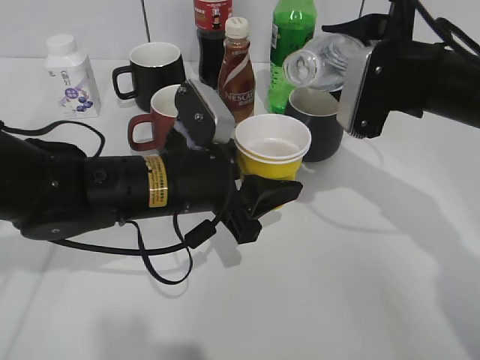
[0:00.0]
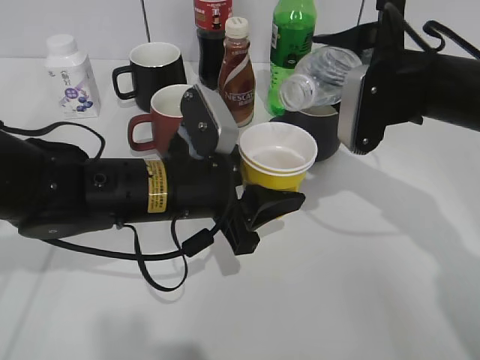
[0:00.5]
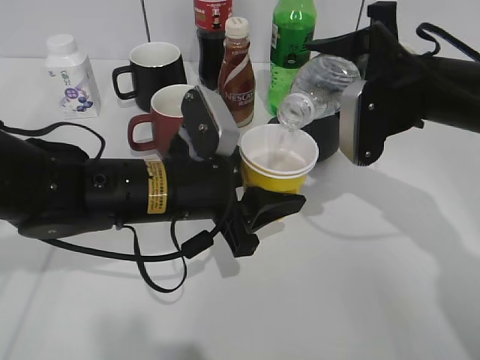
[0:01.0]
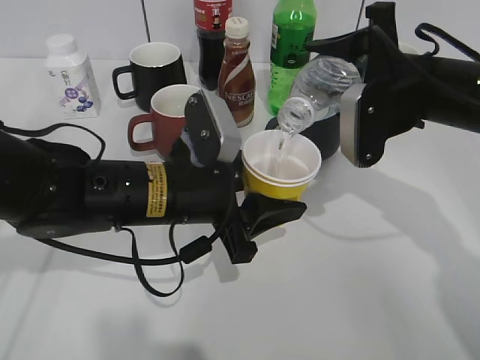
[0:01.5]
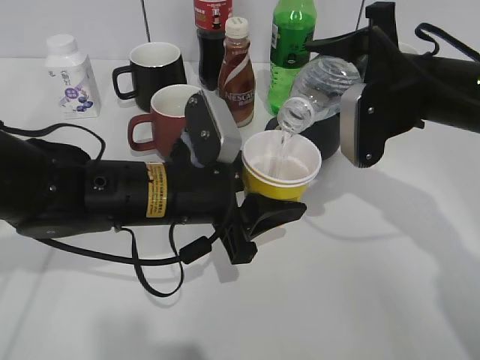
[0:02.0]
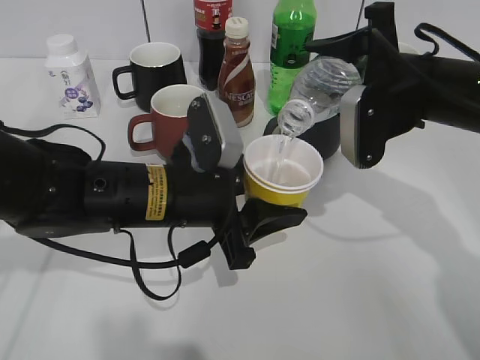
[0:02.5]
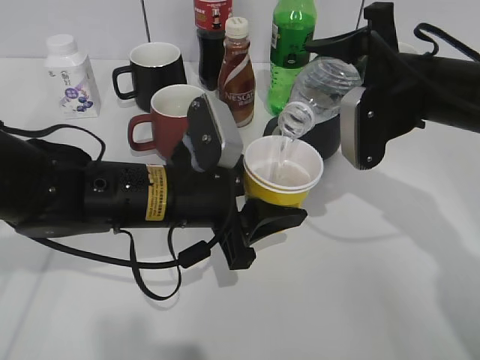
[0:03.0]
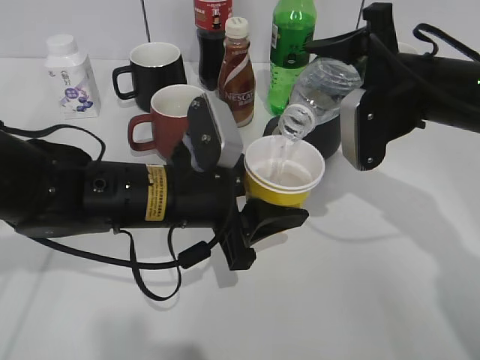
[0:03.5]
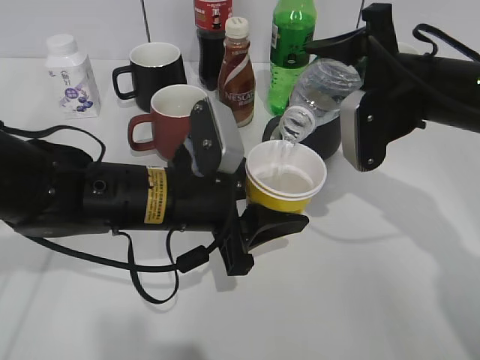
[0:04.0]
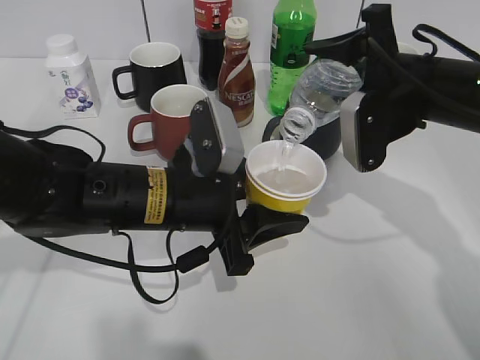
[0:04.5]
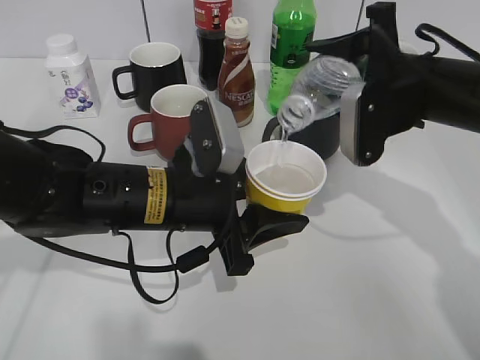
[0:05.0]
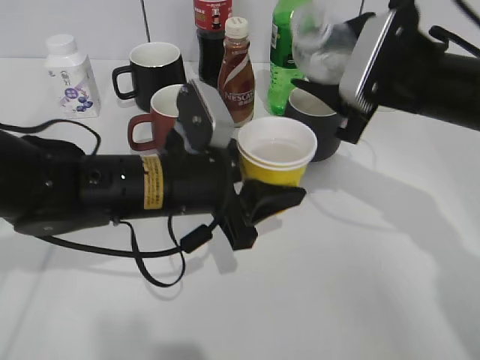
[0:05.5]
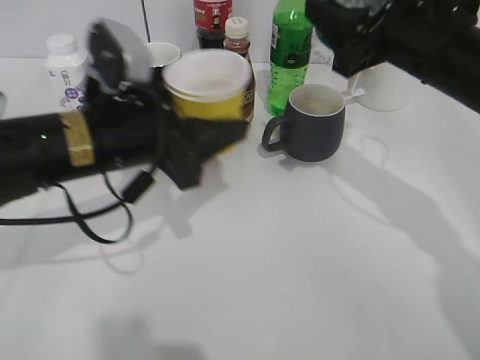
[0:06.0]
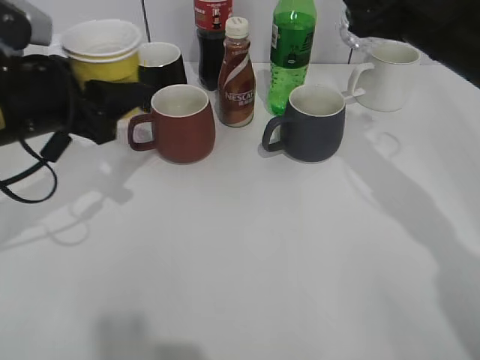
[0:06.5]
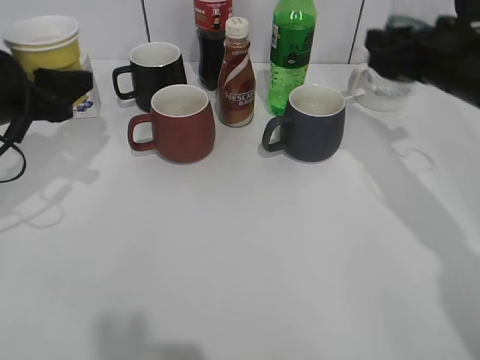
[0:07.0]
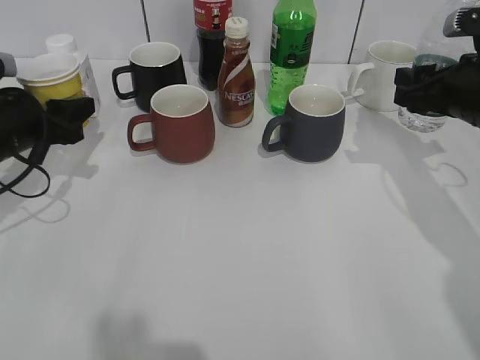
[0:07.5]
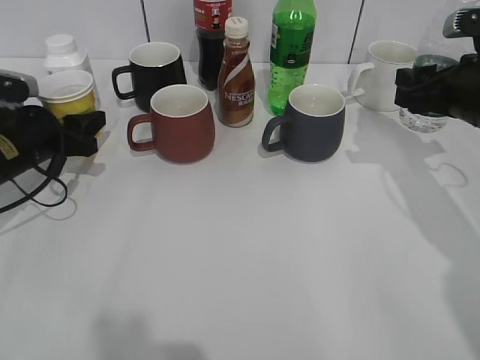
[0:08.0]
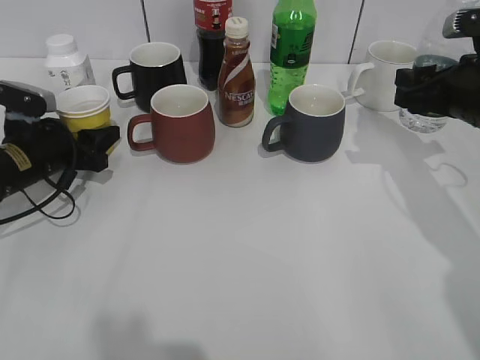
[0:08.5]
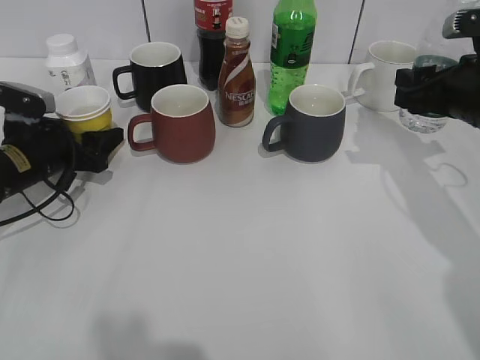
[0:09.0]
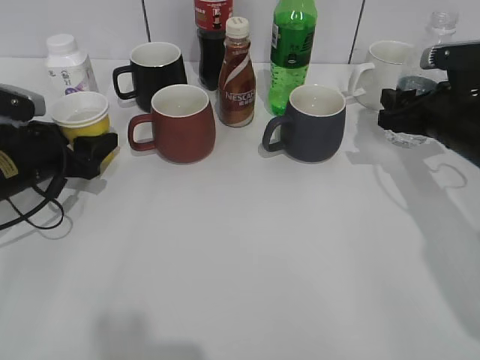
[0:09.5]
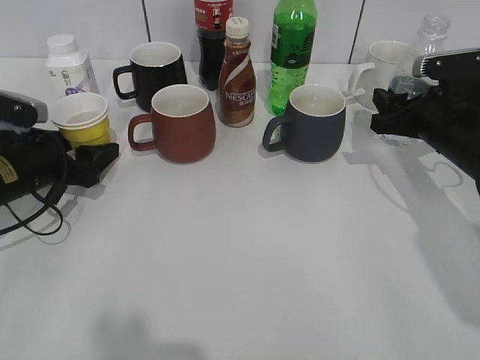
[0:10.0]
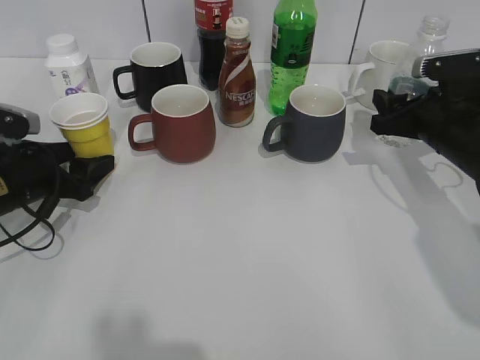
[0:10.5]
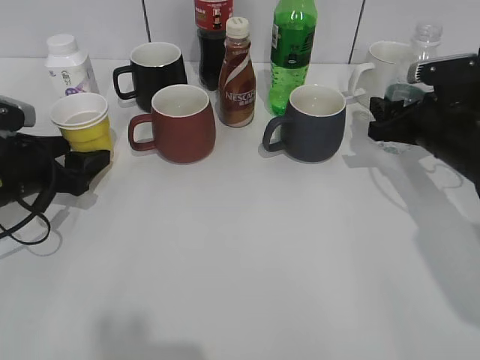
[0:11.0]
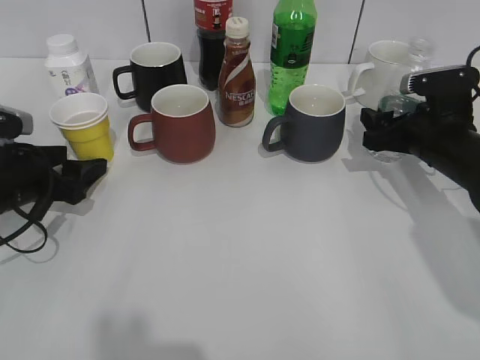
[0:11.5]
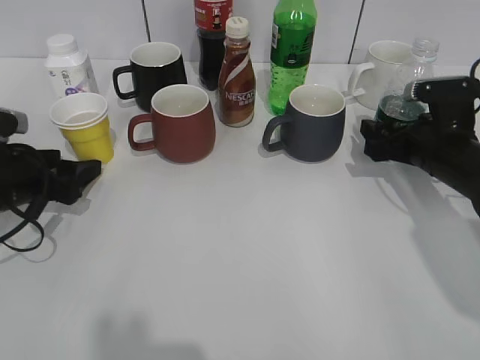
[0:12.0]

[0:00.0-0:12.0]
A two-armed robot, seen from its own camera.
Step, 0:00.0 to 0:05.5: Pour the water from bottle to cup with right gripper.
Step, 0:06.0 to 0:10.0: Place the yellow paper cup on the table with left gripper.
0:00.0 to 0:02.0: The grippers move only a little.
0:02.0 to 0:04.0: Both grippers stay about where they are.
0:04.0 to 0:06.0: The left gripper travels to the left and upward by about 10 cm.
0:06.0 to 0:08.0: The right gripper heads to the right and downward, covering about 10 cm. Meanwhile the left gripper goes roughly 20 cm to the left, forward and downward.
0:08.0 to 0:10.0: The right gripper travels downward by roughly 5 cm. Meanwhile the left gripper opens up.
0:10.0 to 0:12.0: The right gripper opens its fingers.

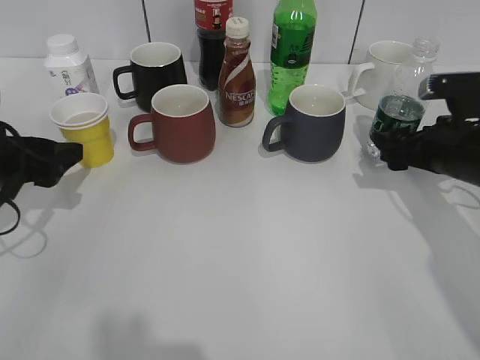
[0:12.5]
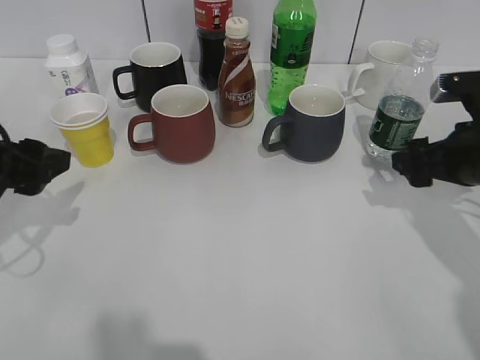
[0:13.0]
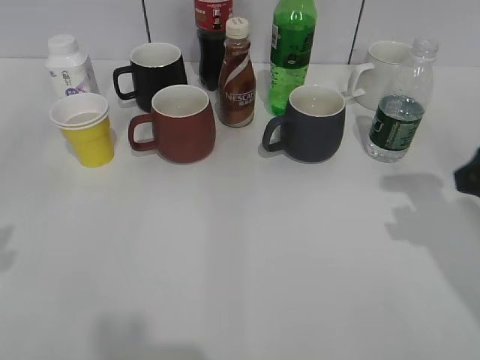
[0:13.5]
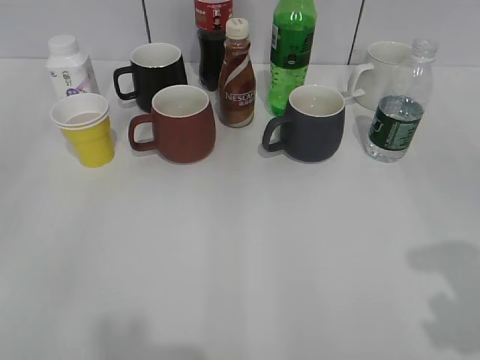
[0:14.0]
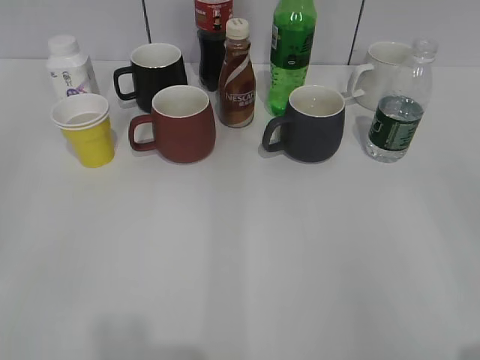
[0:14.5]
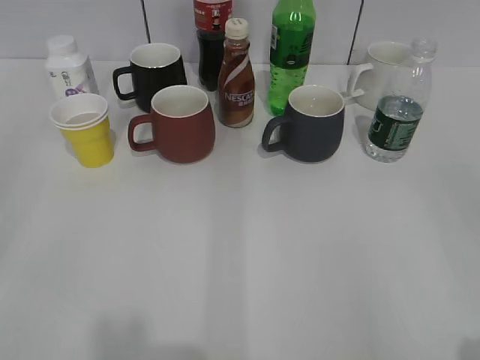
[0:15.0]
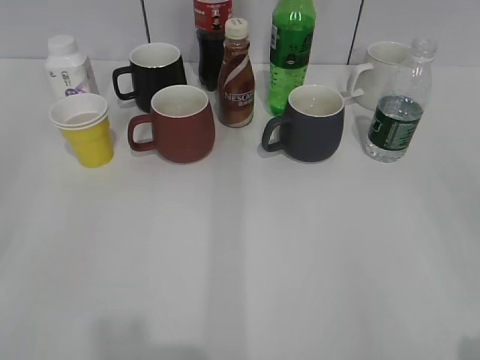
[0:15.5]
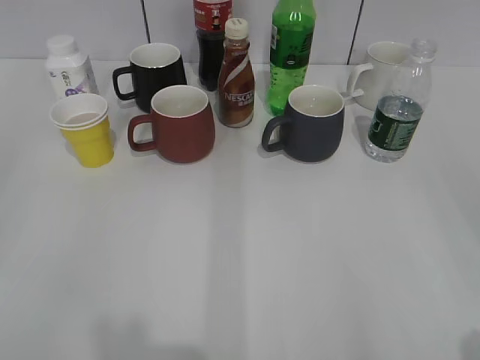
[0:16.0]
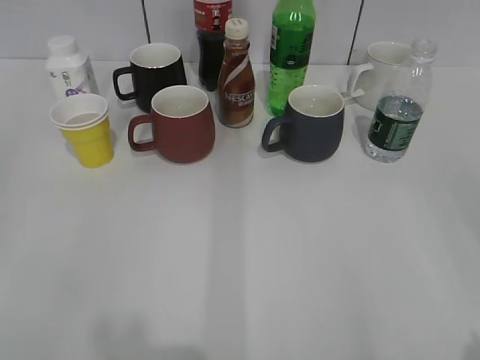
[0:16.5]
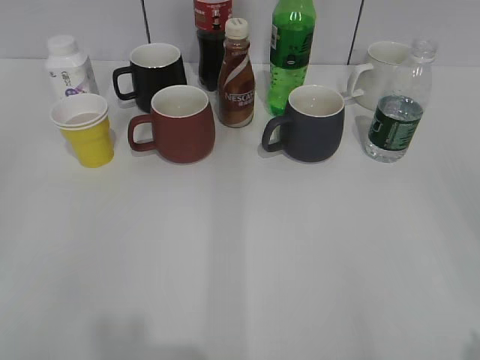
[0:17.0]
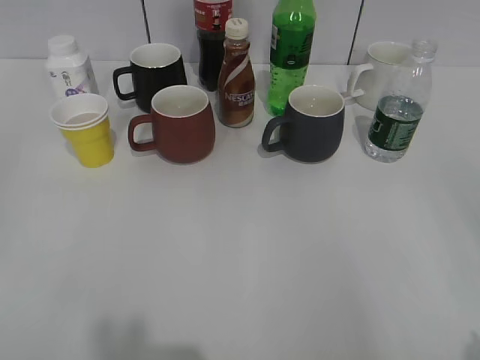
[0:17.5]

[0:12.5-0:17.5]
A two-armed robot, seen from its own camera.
0:12.5 to 0:15.0: Both grippers move backward and upward, roughly 30 cm. The right gripper closes.

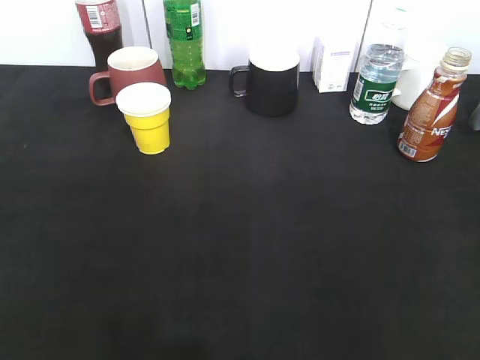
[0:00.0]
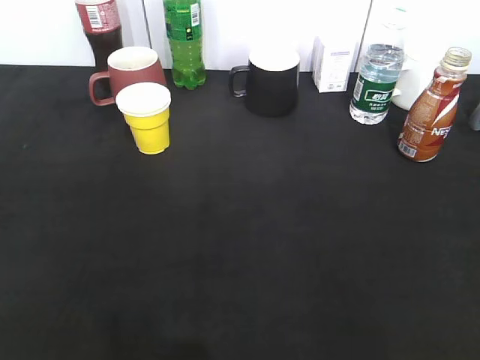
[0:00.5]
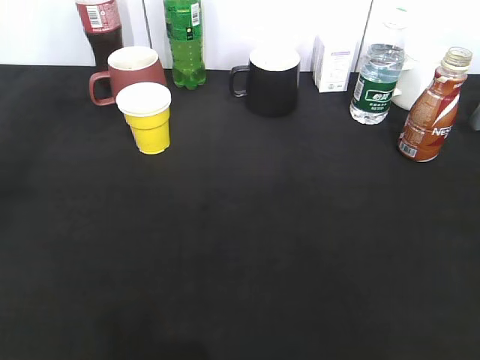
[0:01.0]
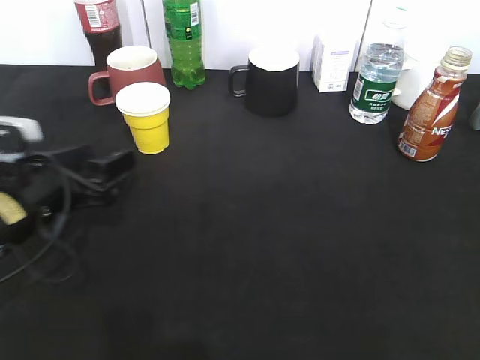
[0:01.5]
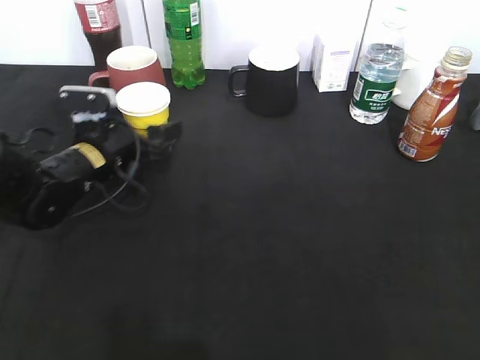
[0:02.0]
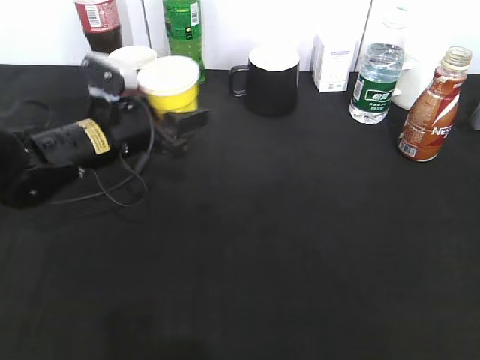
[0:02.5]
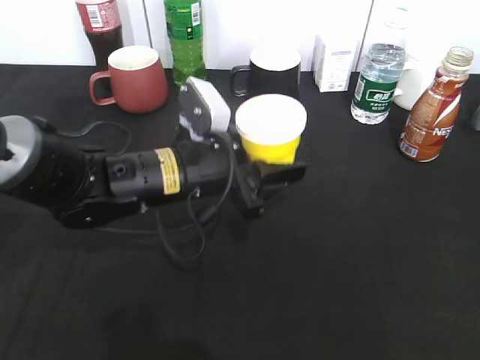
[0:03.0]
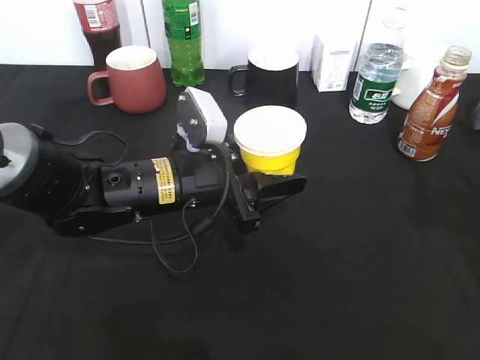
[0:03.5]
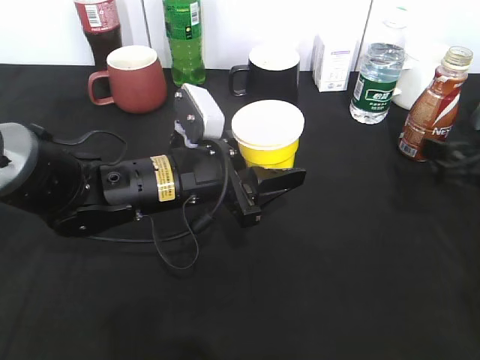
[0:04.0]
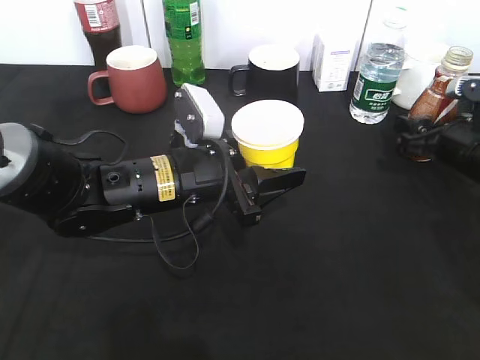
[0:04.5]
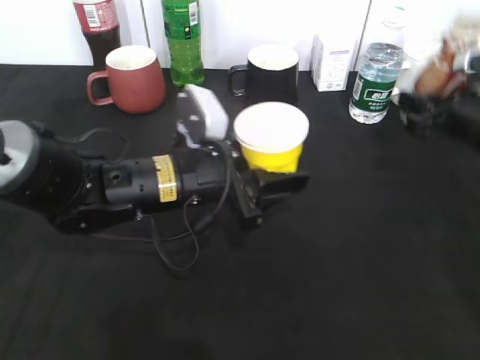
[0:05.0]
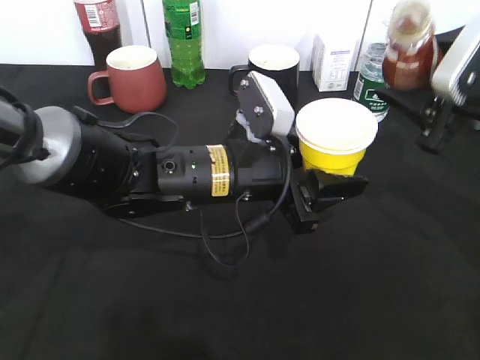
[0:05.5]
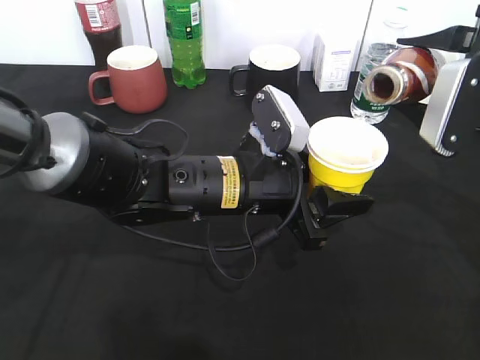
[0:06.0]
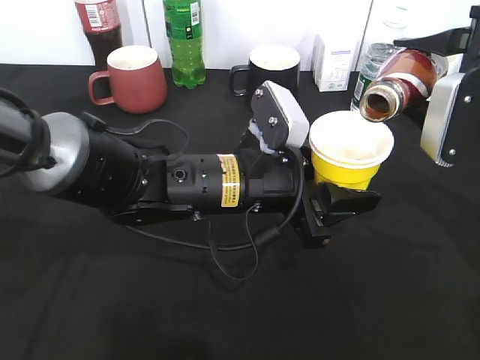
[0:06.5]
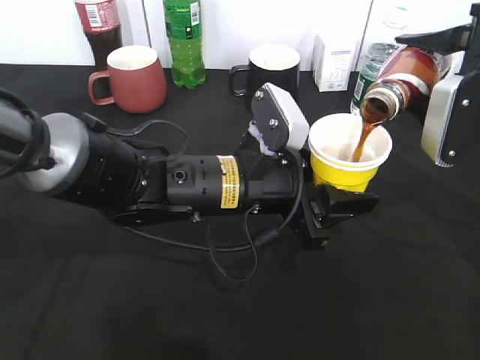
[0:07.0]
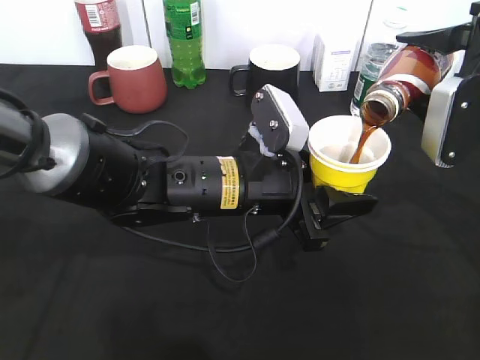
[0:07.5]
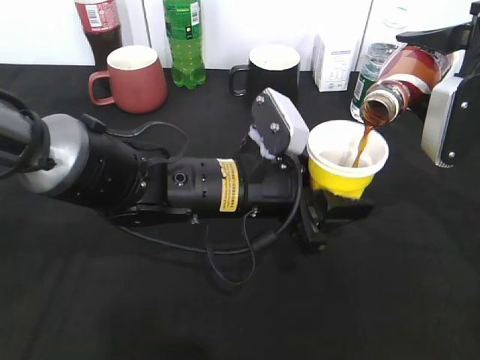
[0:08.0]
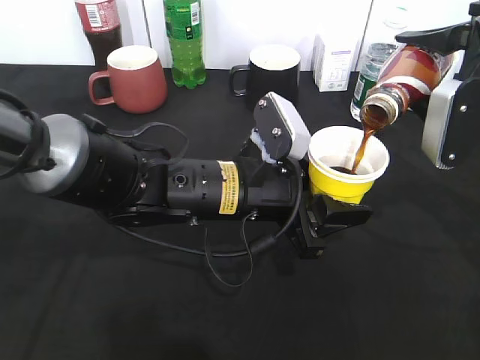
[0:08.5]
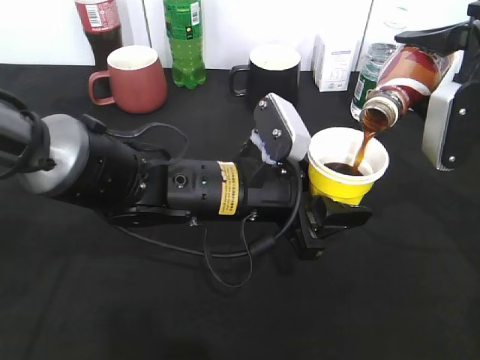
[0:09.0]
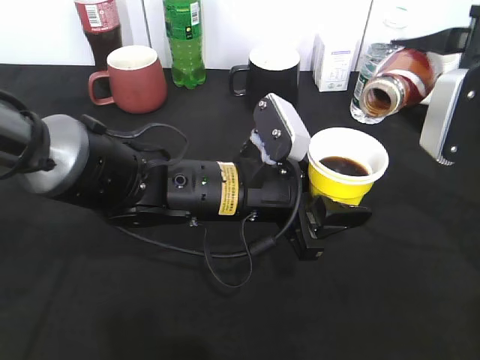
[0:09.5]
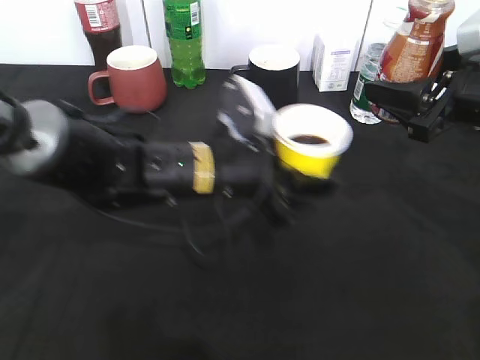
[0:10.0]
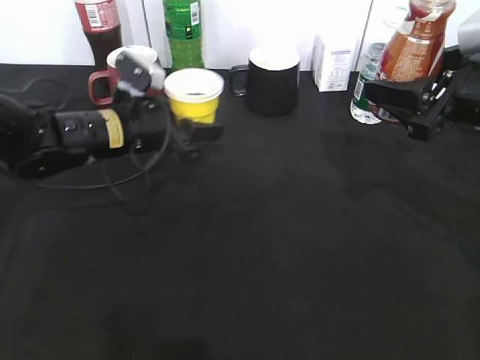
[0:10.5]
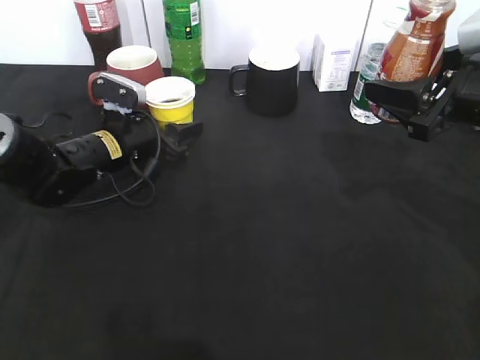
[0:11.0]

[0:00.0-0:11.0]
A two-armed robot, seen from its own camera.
Step, 0:01.5 to 0:02.0: Grasp the yellow paper cup with left gripper.
Step, 0:02.5 to 0:03.5: Lift the yellow paper cup with left gripper.
Step, 0:04.0 to 0:04.5: Grasp the bottle with coffee with right gripper.
Step, 0:05.0 to 0:09.5: Pour the coffee from bottle to cup with right gripper.
0:00.0 to 0:02.0: The left gripper shifts about 40 cm forward, downward and to the right, and opens up.
0:02.0 to 0:03.5: The right gripper goes some 20 cm forward, while the left gripper heads to the right and backward, covering some 15 cm, and closes.
0:03.5 to 0:05.5: The left gripper shifts approximately 5 cm to the right. The right gripper is displaced forward and to the left by about 10 cm, and opens and closes again.
0:07.5 to 0:09.0: Both grippers stay put.
0:09.0 to 0:11.0: The left gripper moves to the left and forward, roughly 20 cm.
